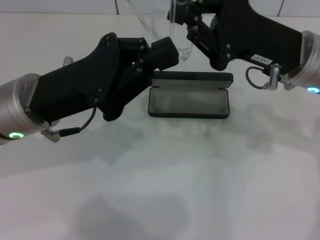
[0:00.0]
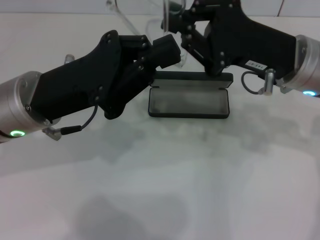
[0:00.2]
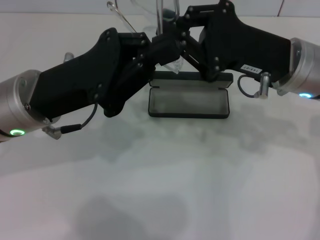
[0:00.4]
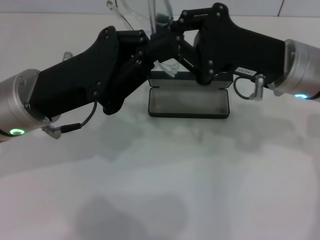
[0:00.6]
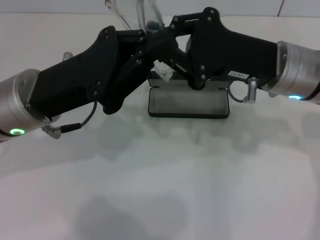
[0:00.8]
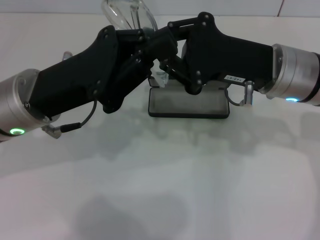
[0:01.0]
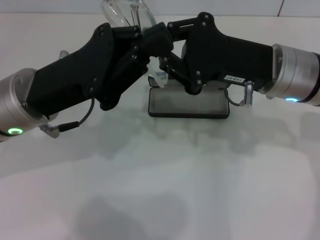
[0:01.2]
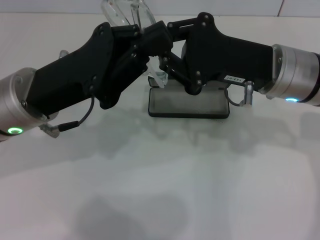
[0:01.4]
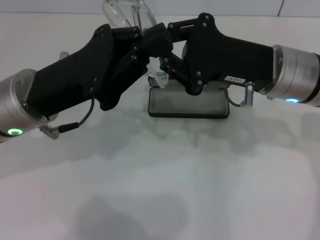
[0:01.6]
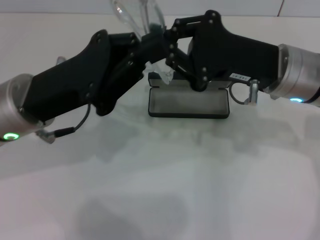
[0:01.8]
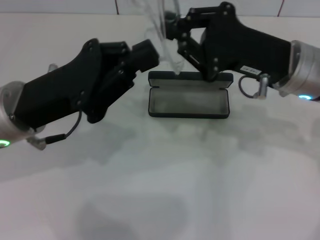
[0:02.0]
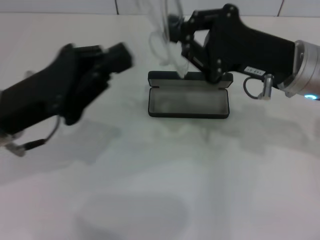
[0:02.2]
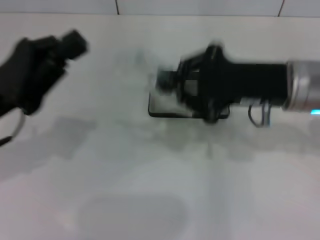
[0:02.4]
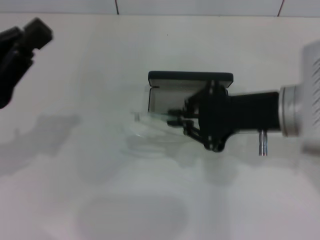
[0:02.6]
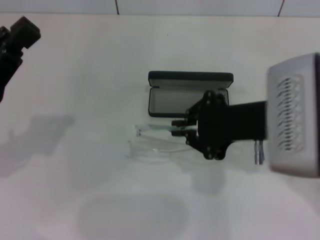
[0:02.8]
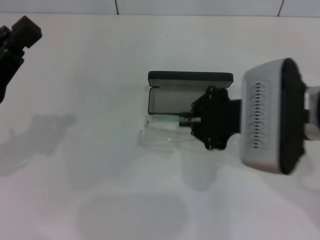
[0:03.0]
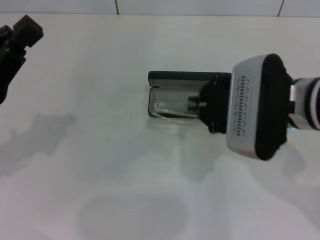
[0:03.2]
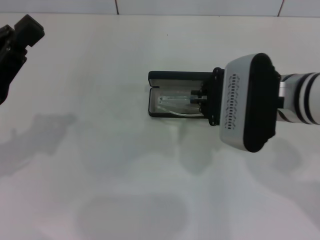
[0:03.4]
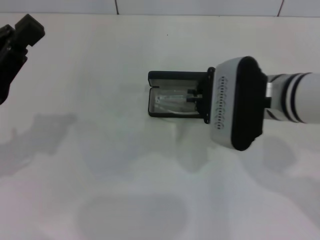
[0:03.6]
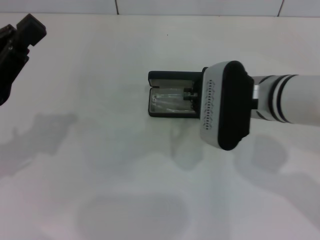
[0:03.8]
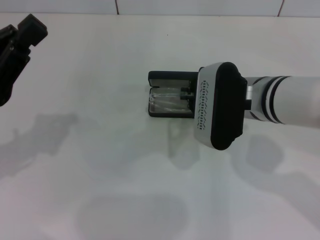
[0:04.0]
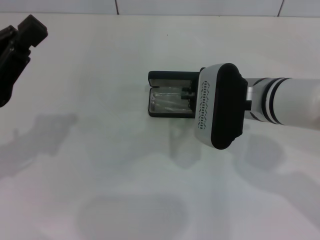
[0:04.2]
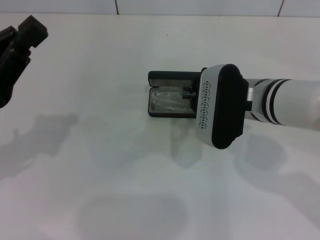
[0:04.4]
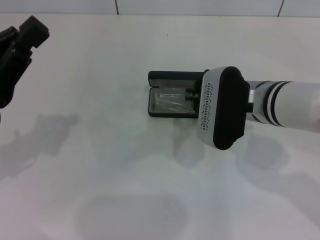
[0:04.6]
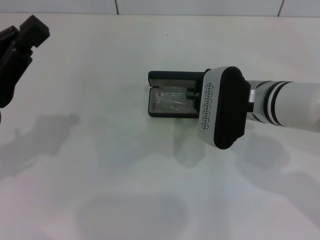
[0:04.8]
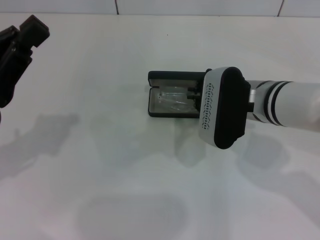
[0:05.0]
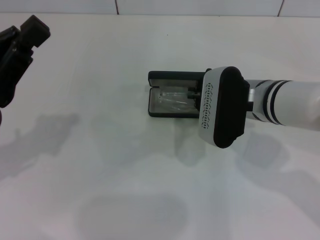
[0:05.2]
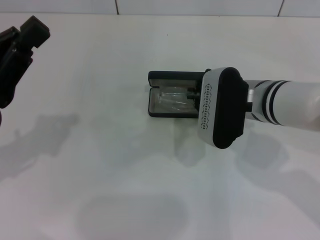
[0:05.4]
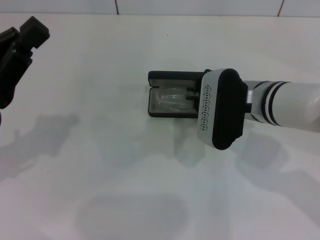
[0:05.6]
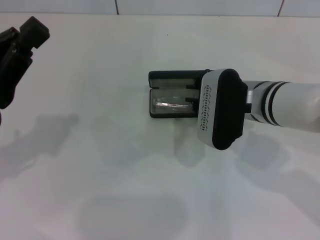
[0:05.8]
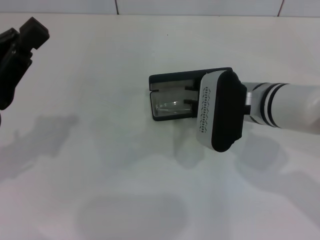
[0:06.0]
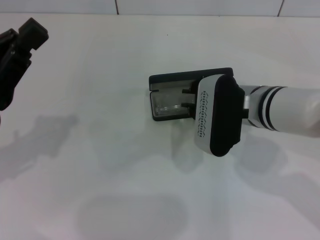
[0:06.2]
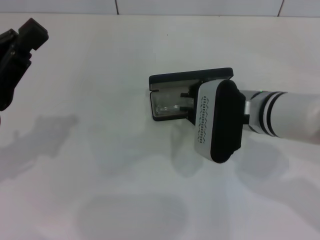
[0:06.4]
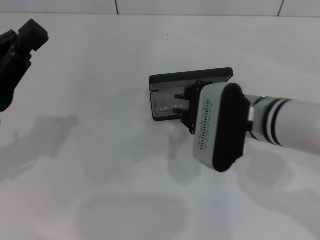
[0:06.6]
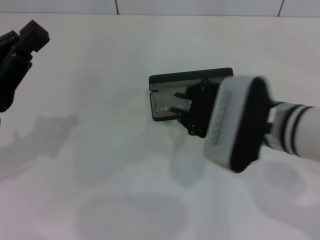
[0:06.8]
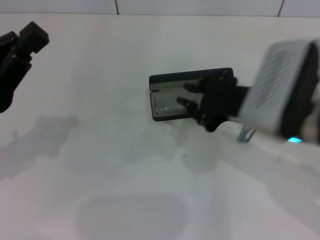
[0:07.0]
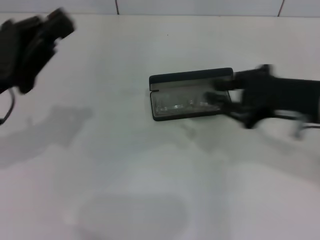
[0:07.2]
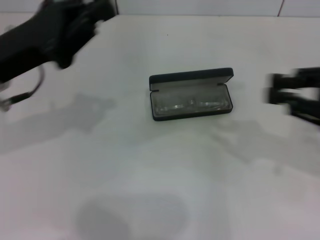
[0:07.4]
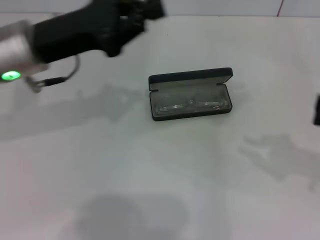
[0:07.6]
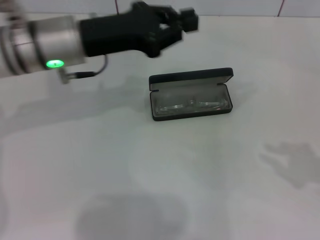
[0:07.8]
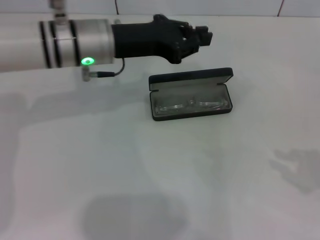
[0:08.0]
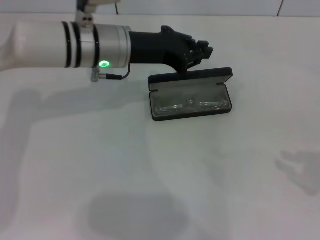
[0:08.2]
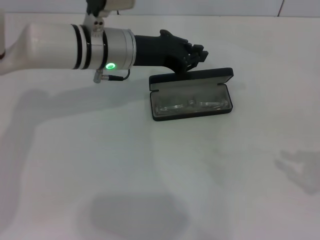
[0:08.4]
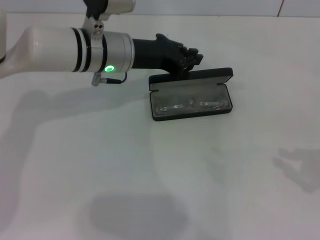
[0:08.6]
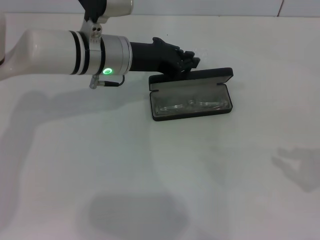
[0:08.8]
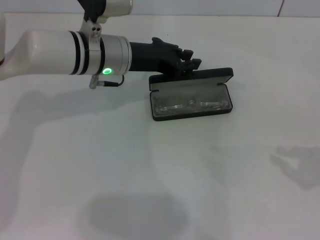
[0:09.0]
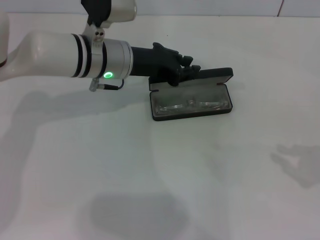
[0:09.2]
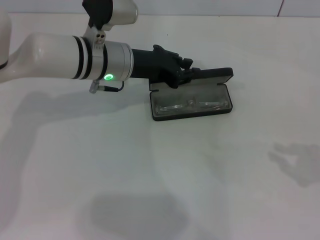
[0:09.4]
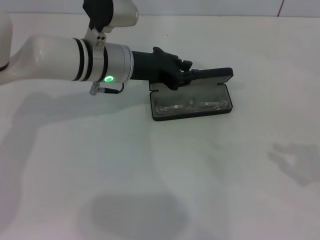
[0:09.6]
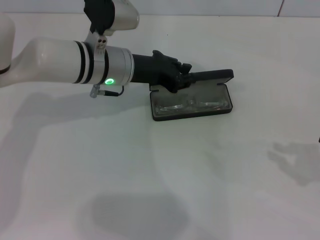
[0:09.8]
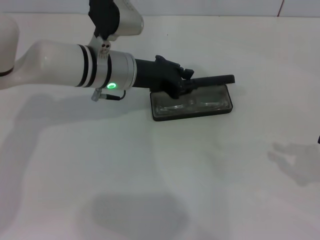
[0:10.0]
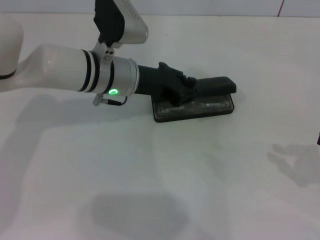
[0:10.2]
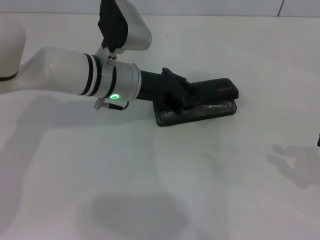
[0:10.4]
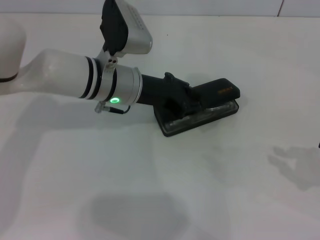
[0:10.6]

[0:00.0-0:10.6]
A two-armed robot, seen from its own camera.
Step, 0:01.8 to 0:06.0: Put the glasses into the case with your right hand.
0:00.0 to 0:01.6: The grippers move only a little.
0:01.6 to 0:03.0: The left gripper is displaced to the left by some 10 cm. Meanwhile the right gripper heads backward, covering approximately 5 cm.
0:03.0 to 0:04.6: The right gripper moves downward and forward, roughly 10 cm.
0:04.6 to 0:06.0: Neither gripper changes place.
0:06.0 to 0:07.6: The right gripper heads to the right and backward, covering some 25 cm; the left gripper travels forward and to the right by approximately 15 cm.
0:07.6 to 0:09.0: The left gripper moves to the right and forward, roughly 10 cm. Meanwhile the right gripper shifts roughly 5 cm downward.
0:09.0 to 0:10.6: The grippers move only a little.

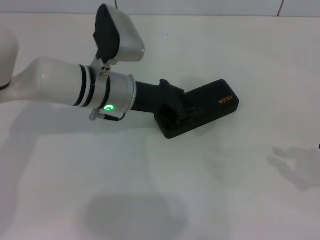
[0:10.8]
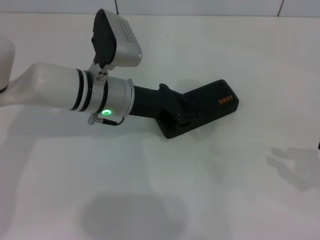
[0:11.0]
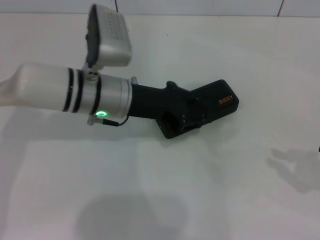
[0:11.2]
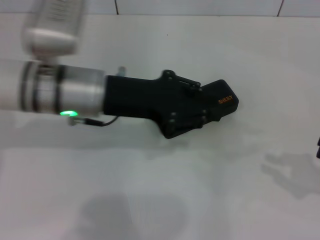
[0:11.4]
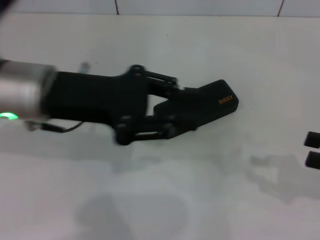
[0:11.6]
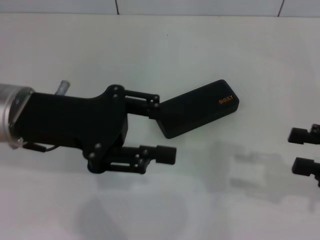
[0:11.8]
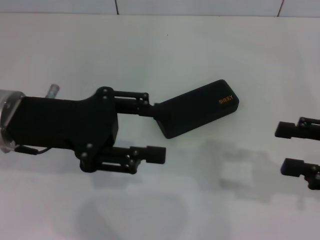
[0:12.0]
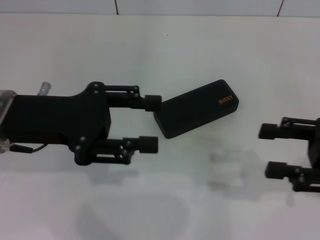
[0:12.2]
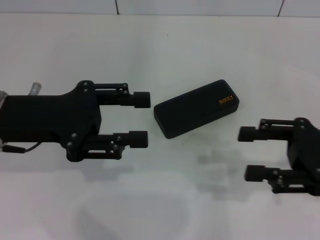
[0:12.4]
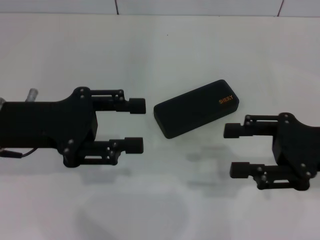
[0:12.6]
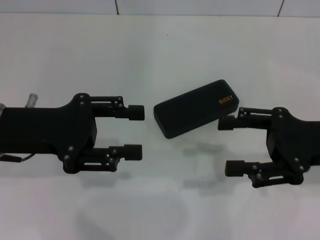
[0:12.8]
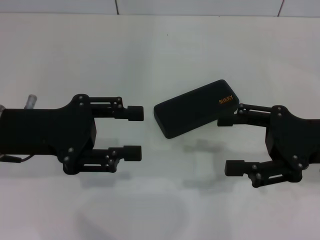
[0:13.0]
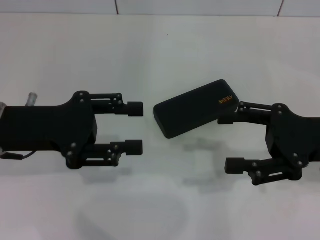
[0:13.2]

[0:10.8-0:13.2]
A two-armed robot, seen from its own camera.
0:10.8 to 0:12.0: The right gripper travels to the left by approximately 5 cm, and opens up. Meanwhile the left gripper shifts some 15 cm to the left, backward and upward.
0:12.0 to 0:13.2: The right gripper goes roughly 5 cm to the left.

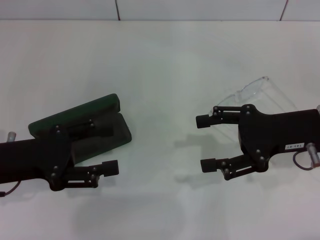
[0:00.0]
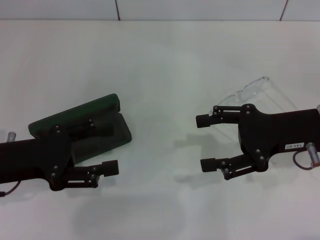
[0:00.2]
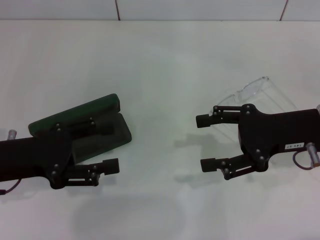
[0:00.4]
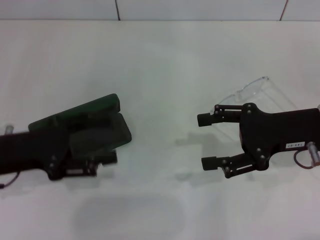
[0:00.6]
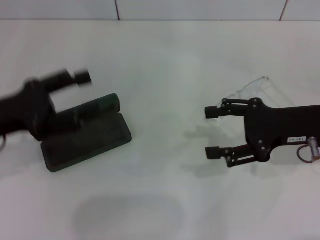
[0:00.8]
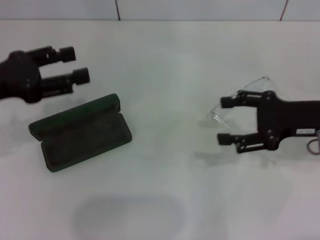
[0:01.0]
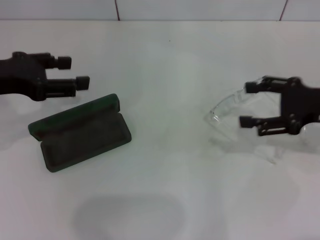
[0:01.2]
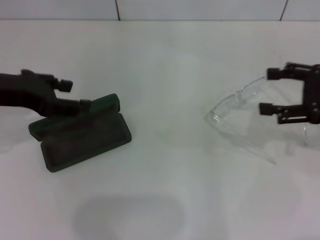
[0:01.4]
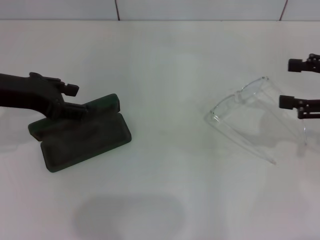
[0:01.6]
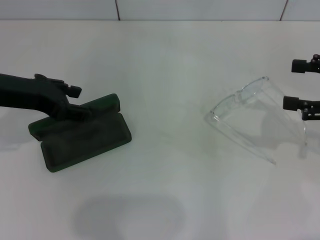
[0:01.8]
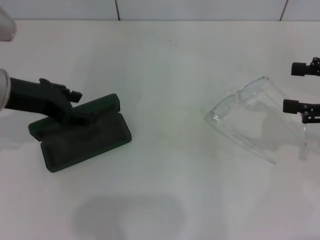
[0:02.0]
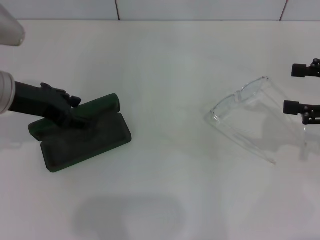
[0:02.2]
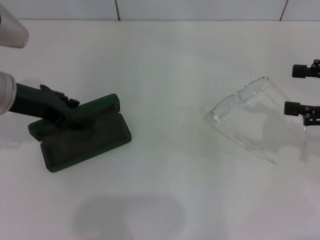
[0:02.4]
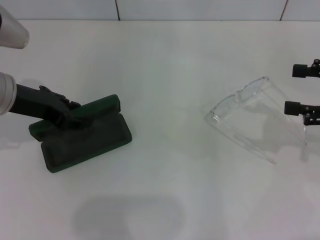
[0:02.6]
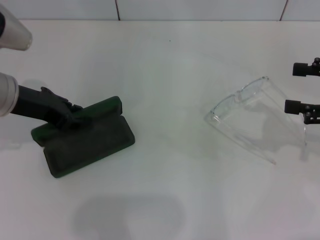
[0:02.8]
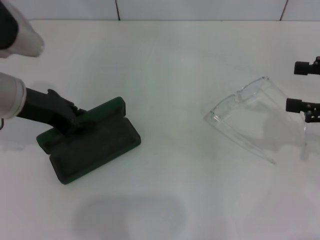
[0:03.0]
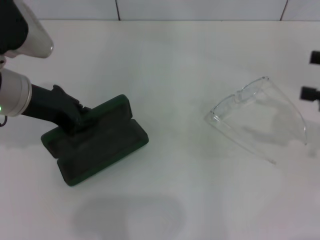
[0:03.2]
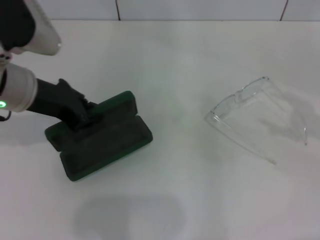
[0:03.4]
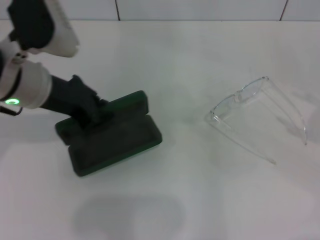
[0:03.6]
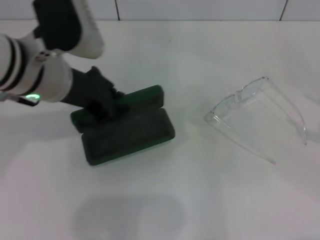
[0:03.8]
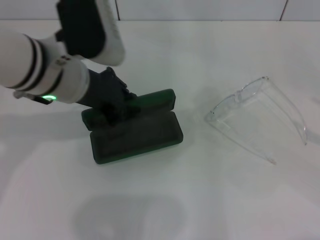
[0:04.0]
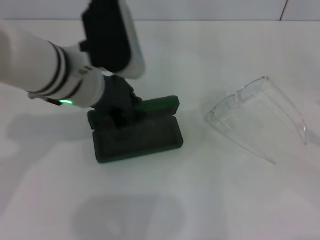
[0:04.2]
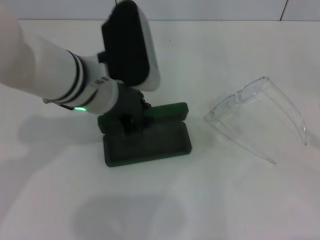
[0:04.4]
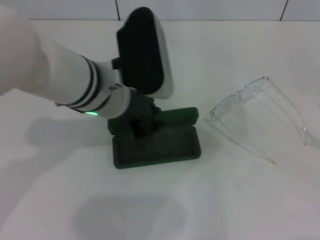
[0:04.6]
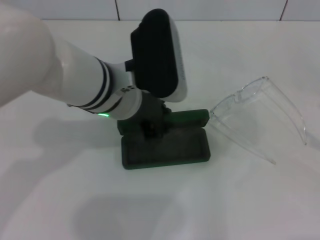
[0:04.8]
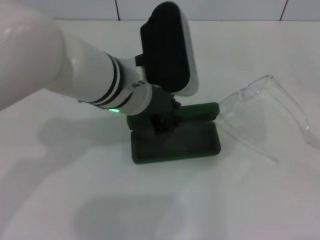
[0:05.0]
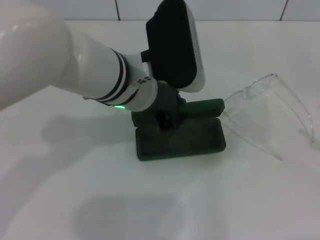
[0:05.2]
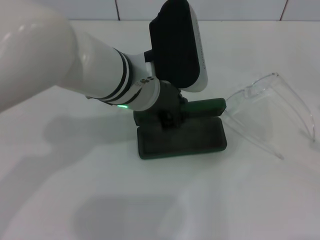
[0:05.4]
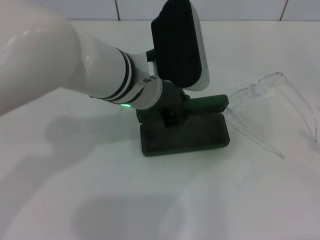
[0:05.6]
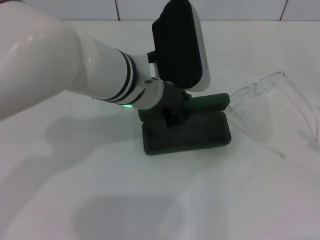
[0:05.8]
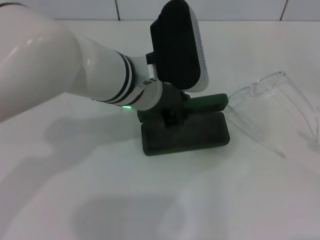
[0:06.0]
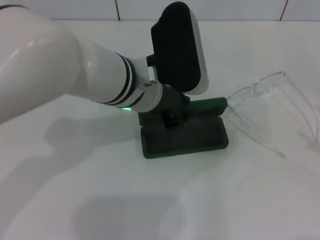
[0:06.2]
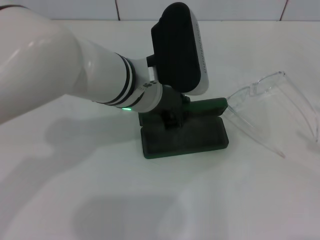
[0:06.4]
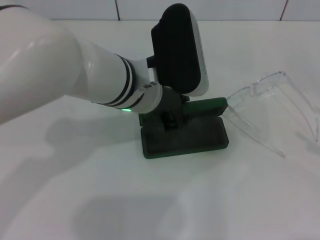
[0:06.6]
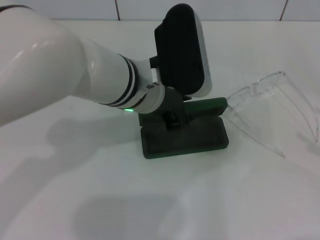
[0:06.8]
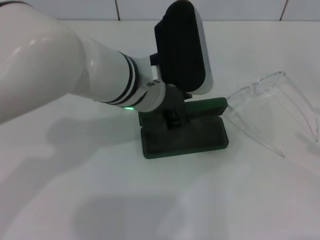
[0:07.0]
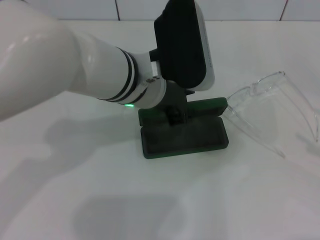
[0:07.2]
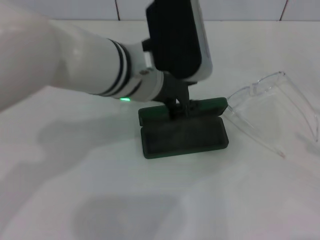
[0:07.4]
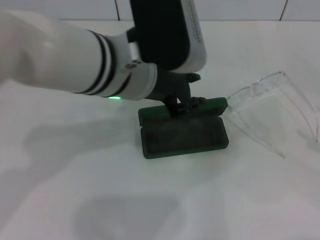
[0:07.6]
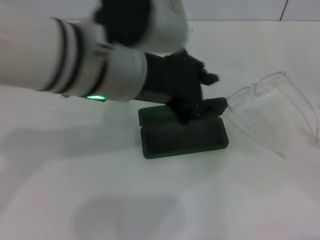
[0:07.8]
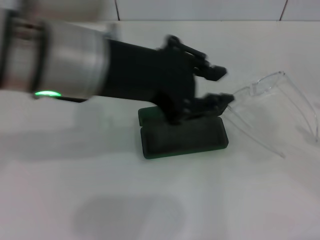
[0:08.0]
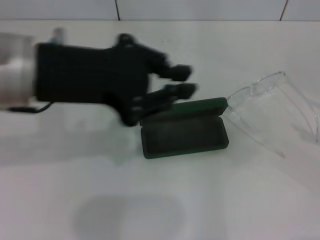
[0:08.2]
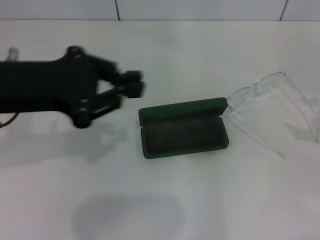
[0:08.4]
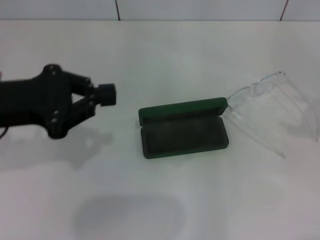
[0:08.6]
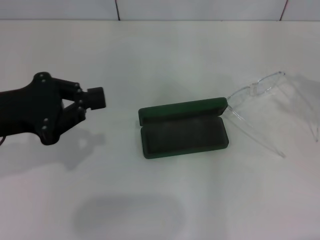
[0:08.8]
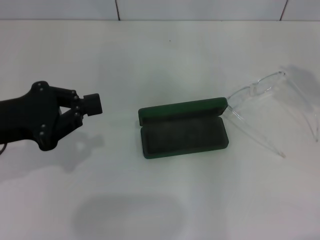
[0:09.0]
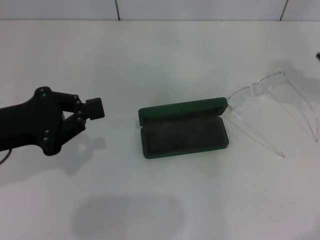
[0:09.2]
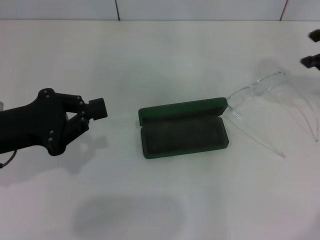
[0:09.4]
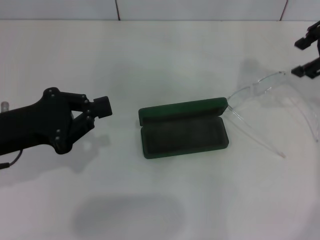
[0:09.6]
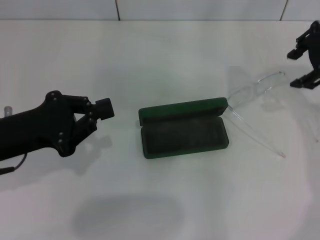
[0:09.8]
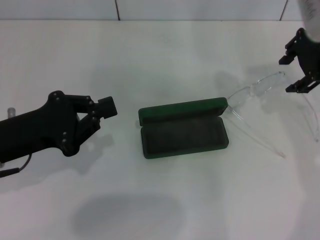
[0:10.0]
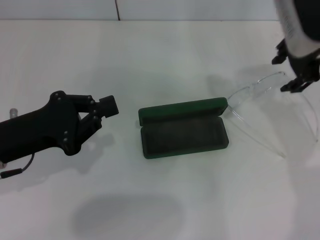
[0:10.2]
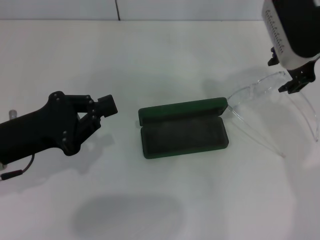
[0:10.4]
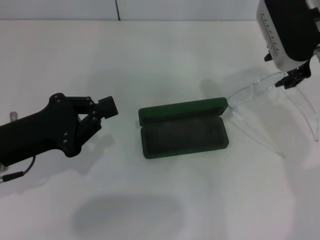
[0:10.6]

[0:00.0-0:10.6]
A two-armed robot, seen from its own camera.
Step, 0:00.0 to 0:02.4: Grab the glasses case with your left hand.
Step, 0:02.6 to 0:07.2: Place the glasses case in the center of the table with your left hand.
0:00.0 to 0:01.6: The right gripper moves to the right, some 10 cm; the left gripper travels upward and forward by some 10 cm.
0:01.6 to 0:03.0: The left gripper closes its fingers.
0:03.0 to 0:04.6: The right gripper heads to the right and backward, covering roughly 15 cm. The left gripper moves to the right, roughly 15 cm.
0:06.0 to 0:07.6: The left gripper moves upward, some 5 cm.
0:07.6 to 0:09.0: The right gripper heads forward, upward and to the left, covering some 20 cm. Meanwhile the left gripper moves to the left, some 20 cm, and closes its fingers.
0:09.0 to 0:10.6: The right gripper travels to the left and forward by some 15 cm; the left gripper changes place by roughly 5 cm.
